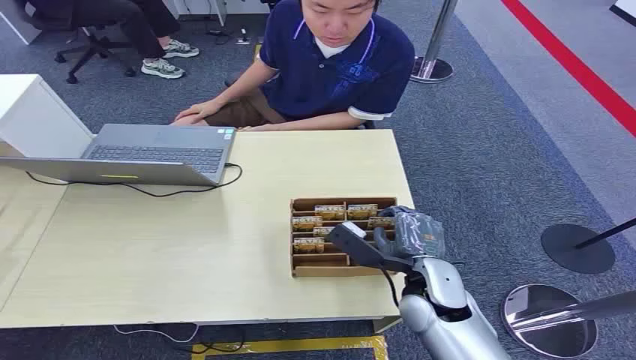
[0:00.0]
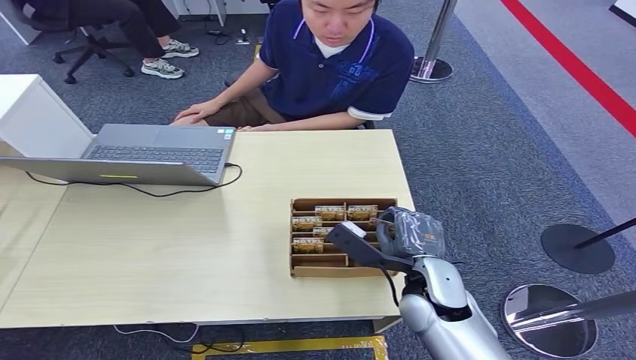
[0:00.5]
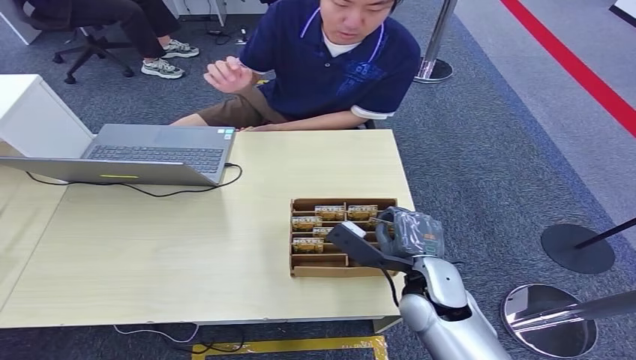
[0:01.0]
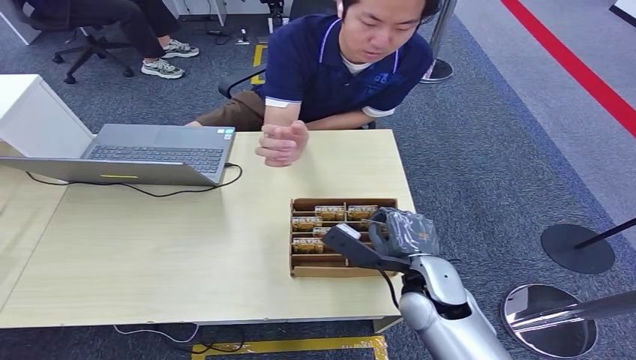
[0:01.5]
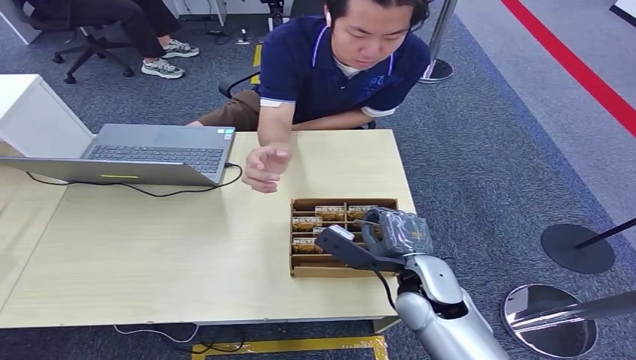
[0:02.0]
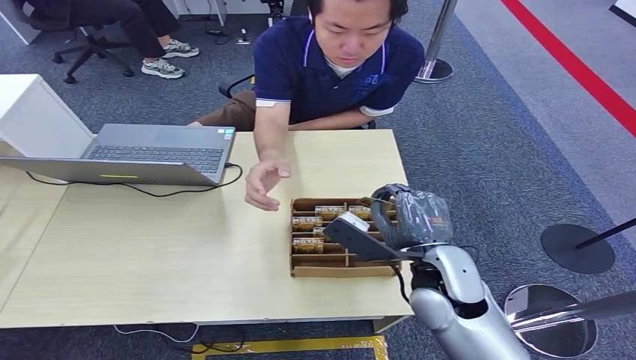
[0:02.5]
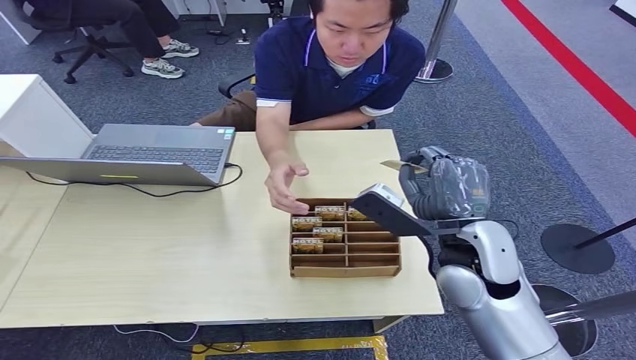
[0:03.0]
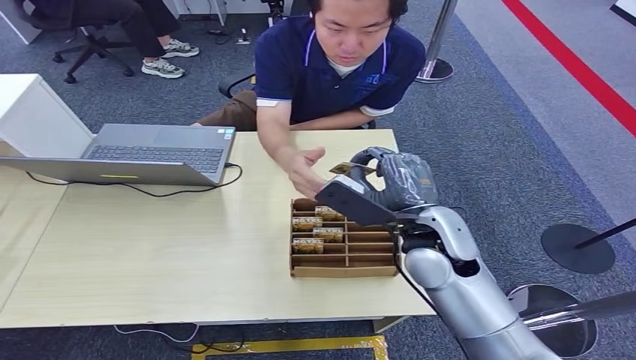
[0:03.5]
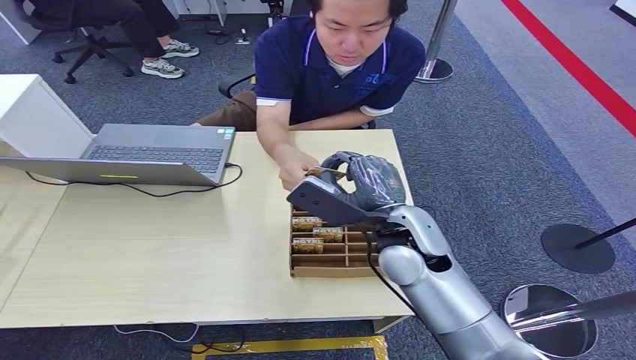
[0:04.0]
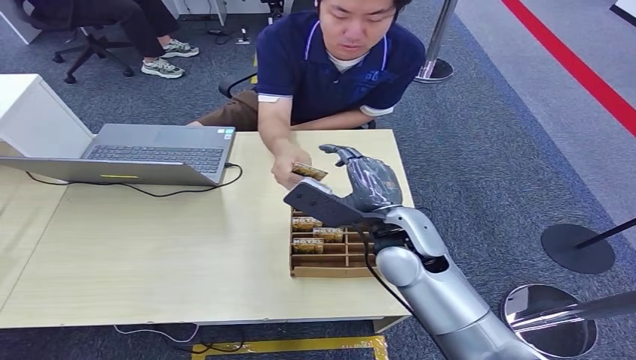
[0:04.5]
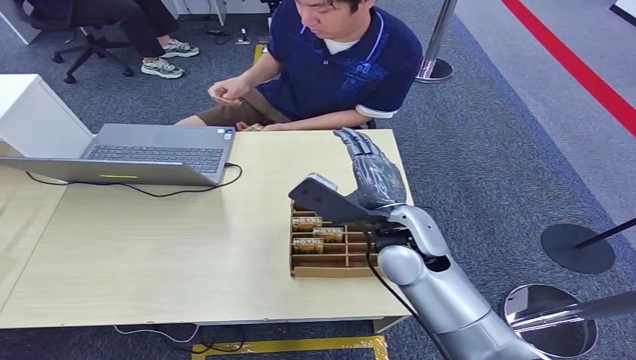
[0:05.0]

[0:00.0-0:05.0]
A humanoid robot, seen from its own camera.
Step, 0:00.0 to 0:02.5: Pick up the key card from the card box.
Step, 0:03.0 to 0:05.0: Hand the key card to the target.
0:02.5 to 0:05.0: The right hand goes some 5 cm forward.

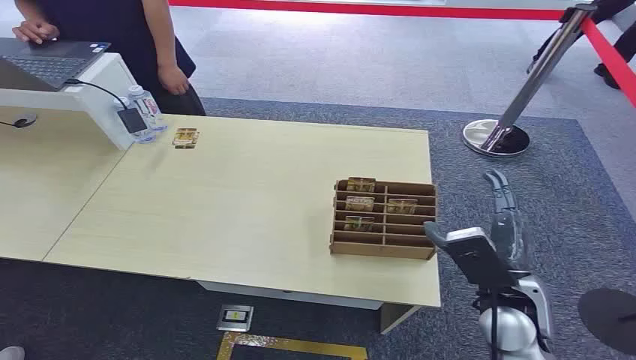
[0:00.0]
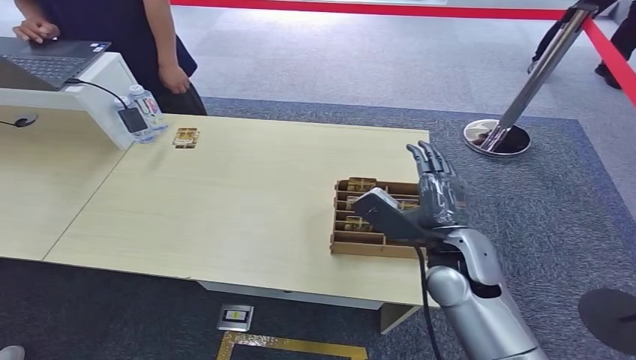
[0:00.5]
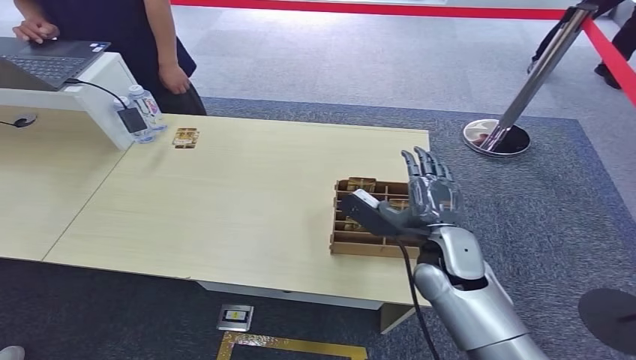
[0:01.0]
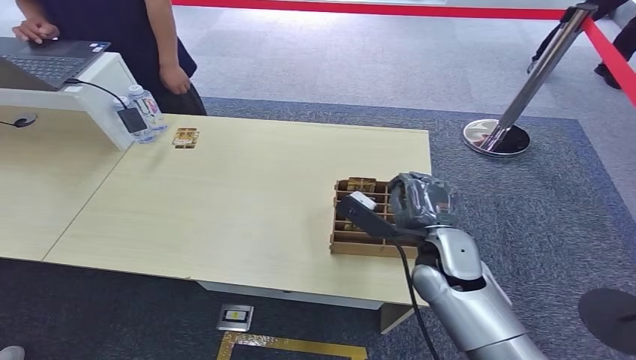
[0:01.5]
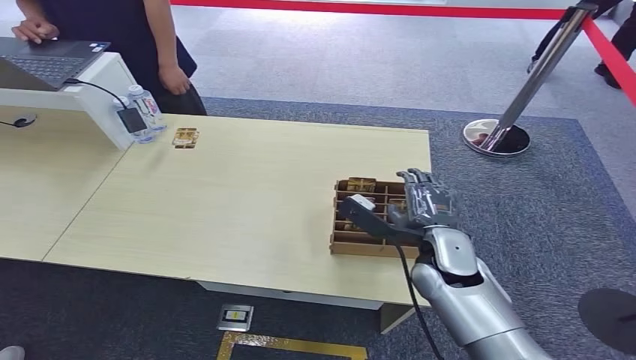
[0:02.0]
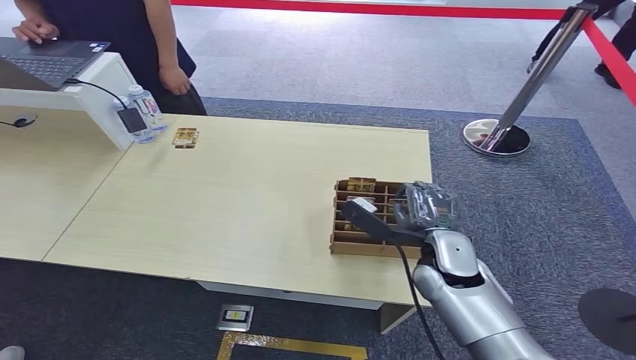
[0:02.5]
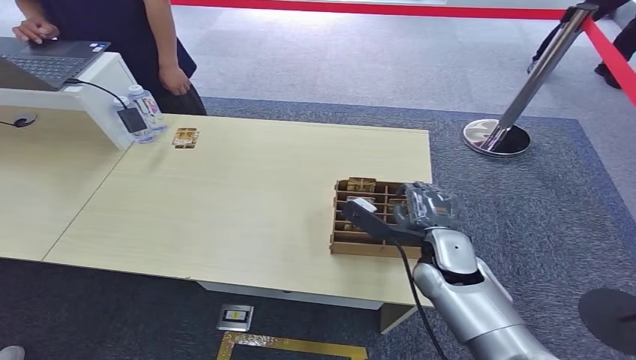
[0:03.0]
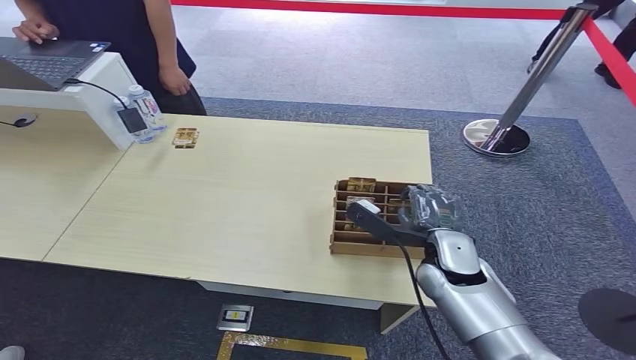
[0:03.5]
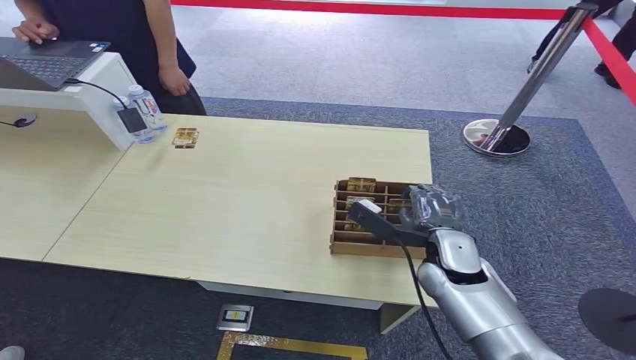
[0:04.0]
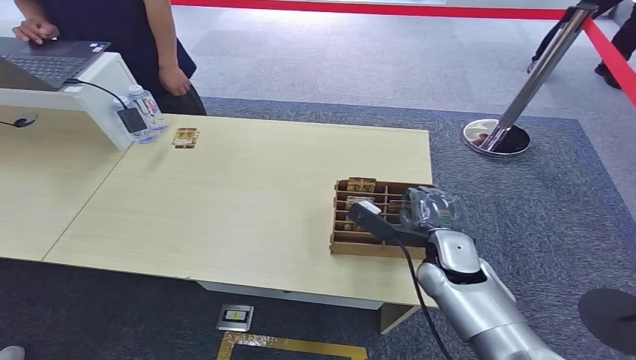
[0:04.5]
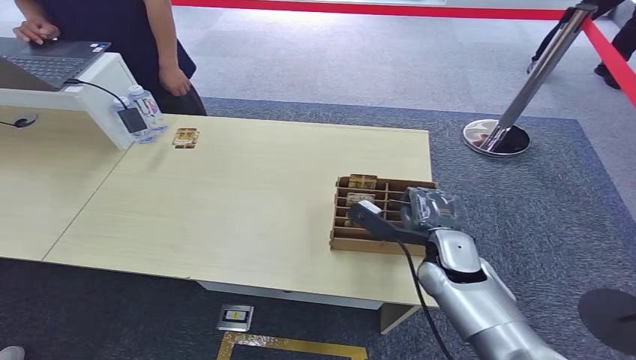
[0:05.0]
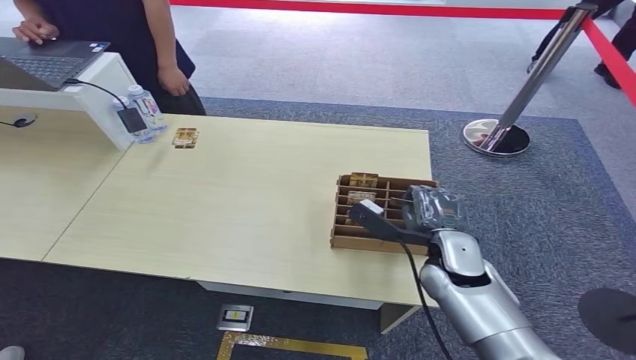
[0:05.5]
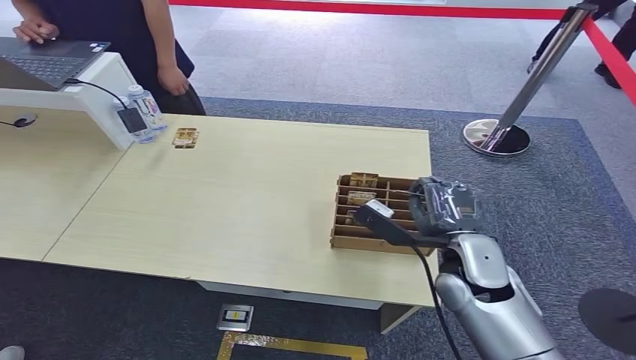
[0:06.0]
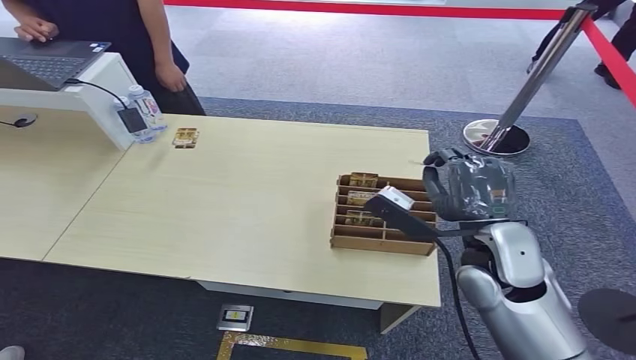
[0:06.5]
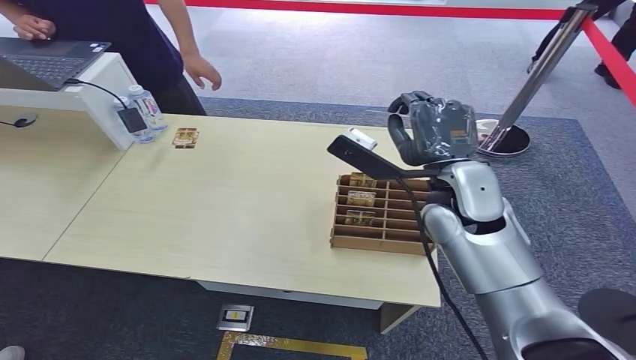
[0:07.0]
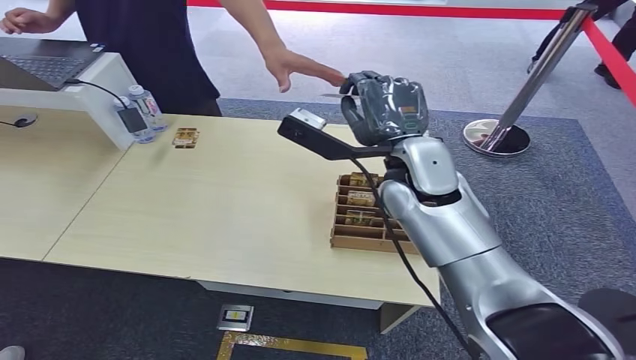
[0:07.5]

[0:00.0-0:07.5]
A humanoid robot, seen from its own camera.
Step, 0:00.0 to 0:06.5: Pick up the key card from the card box.
Step, 0:07.0 to 0:07.5: Hand the key card to the target.
0:02.0 to 0:04.0: There are only small adjustments of the hands.
0:04.0 to 0:05.5: Both hands stay put.
